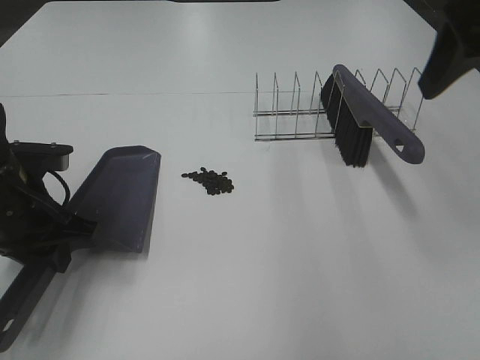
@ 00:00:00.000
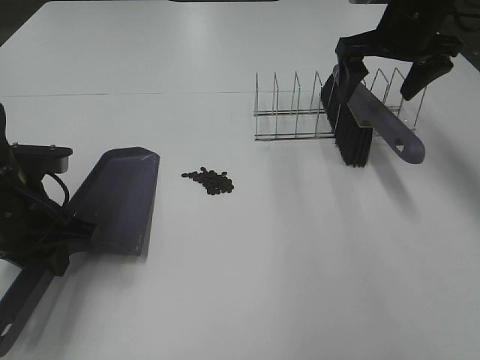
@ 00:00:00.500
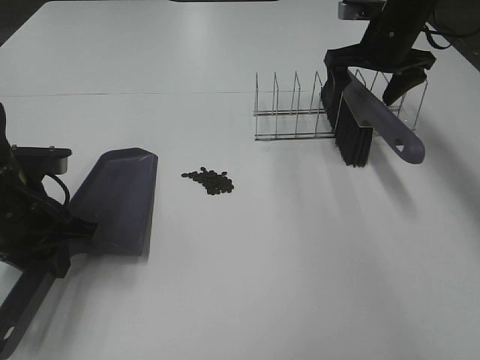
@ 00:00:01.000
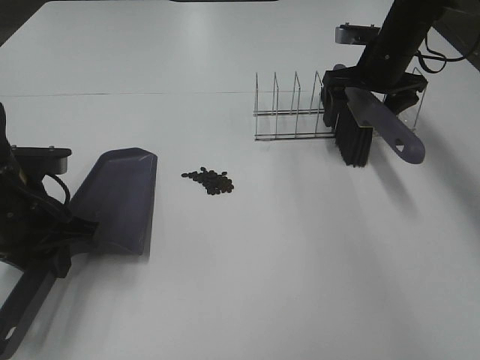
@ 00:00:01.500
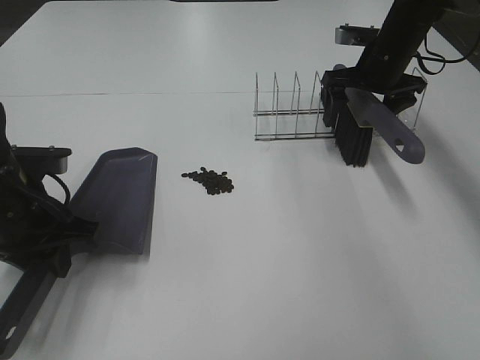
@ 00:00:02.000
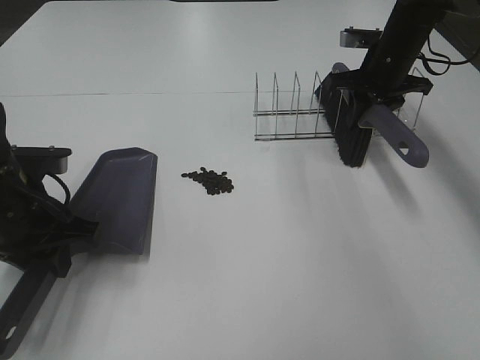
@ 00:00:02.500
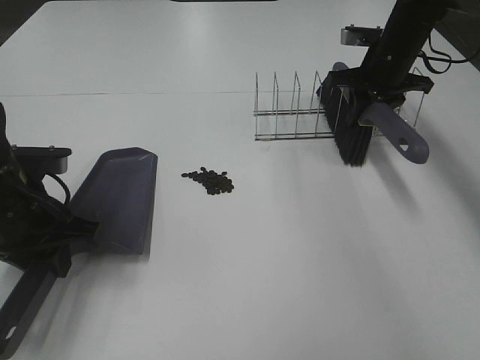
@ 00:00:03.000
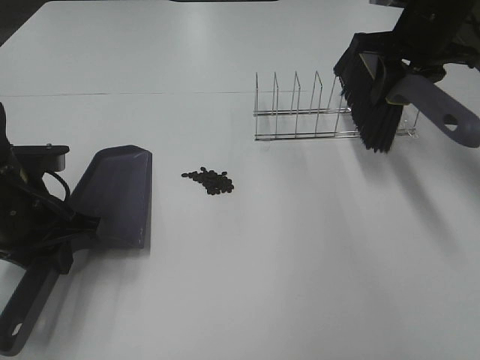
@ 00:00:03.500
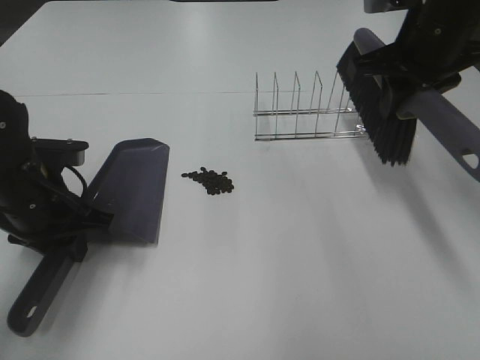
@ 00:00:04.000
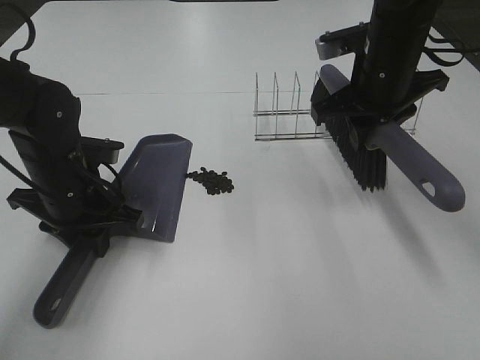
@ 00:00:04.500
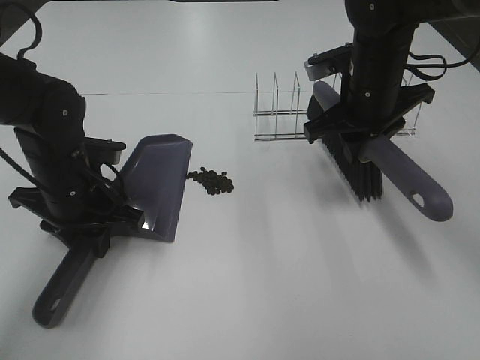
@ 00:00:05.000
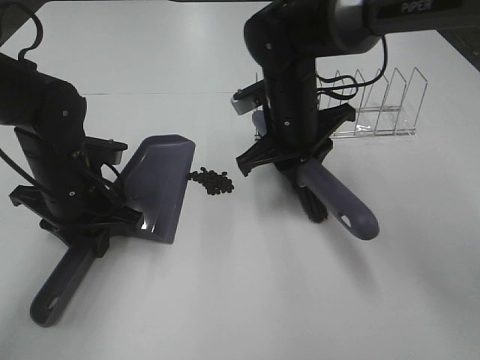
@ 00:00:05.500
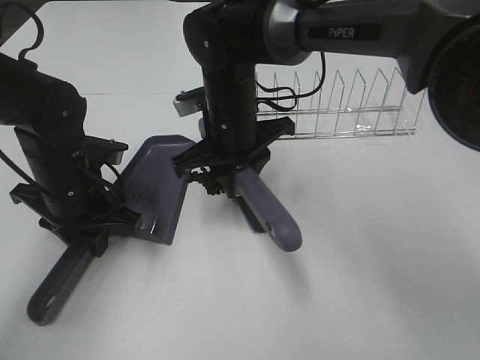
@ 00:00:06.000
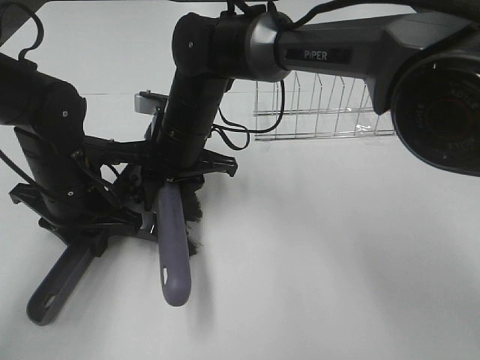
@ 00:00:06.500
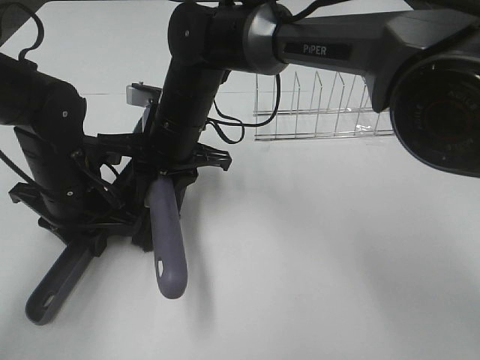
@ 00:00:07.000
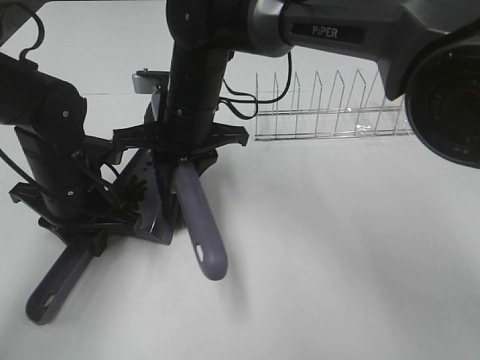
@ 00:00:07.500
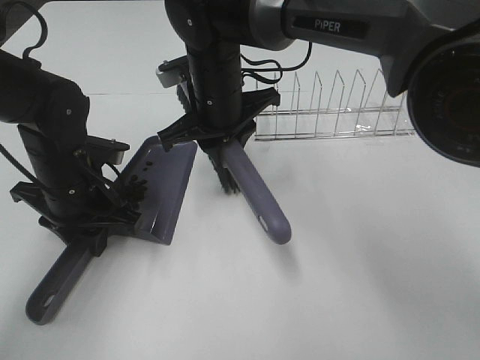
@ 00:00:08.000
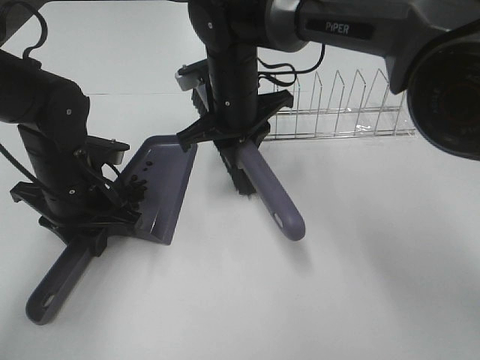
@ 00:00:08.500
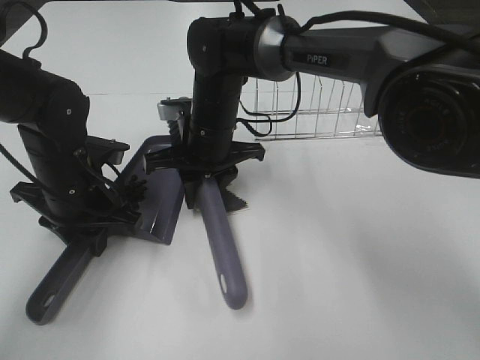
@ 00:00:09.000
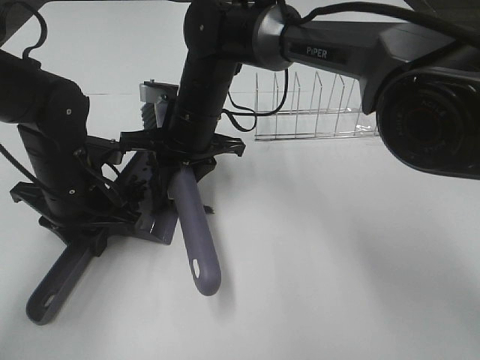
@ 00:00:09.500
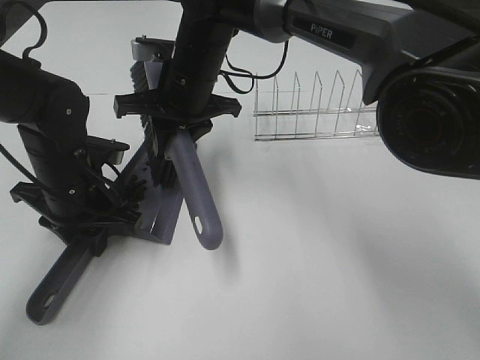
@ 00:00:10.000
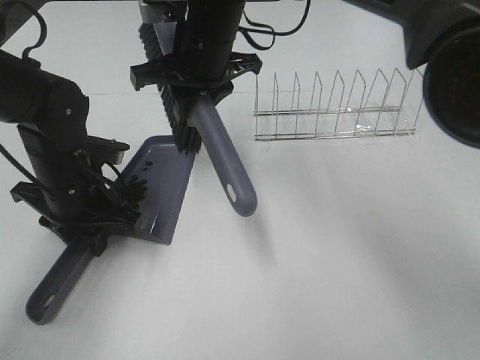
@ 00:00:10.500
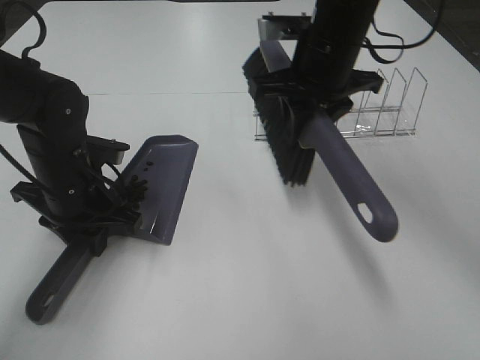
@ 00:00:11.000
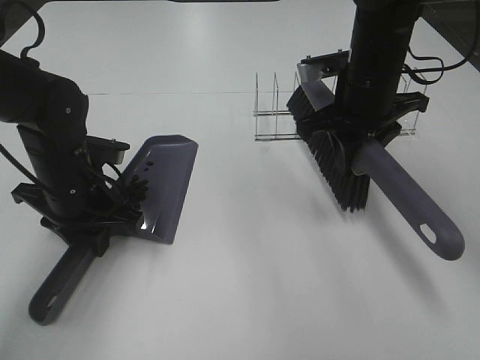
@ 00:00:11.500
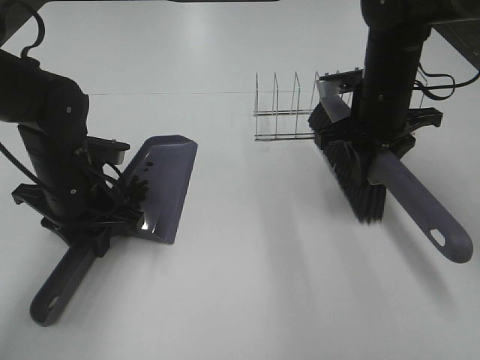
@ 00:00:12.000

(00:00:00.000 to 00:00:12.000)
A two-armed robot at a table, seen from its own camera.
Task of the whole recording: Sweep Coffee Bean.
Step, 00:00:00.000 - 00:00:02.500: Right hand:grab the broom.
Step, 00:00:03.000 - 00:00:10.000: Right hand:sweep the coffee beans into the dustpan.
00:00:00.000 - 00:00:02.000: The right gripper is displaced forward and downward by approximately 25 cm.
00:00:02.000 - 00:00:04.000: The right gripper moves backward and upward, roughly 15 cm, and closes up.
00:00:04.000 - 00:00:06.000: The right gripper is displaced to the left and downward by some 25 cm.
00:00:10.000 - 00:00:12.000: The right gripper travels to the right by some 25 cm.

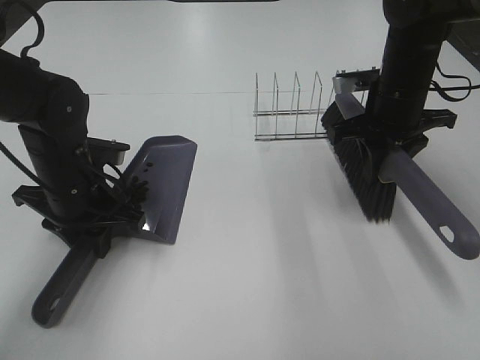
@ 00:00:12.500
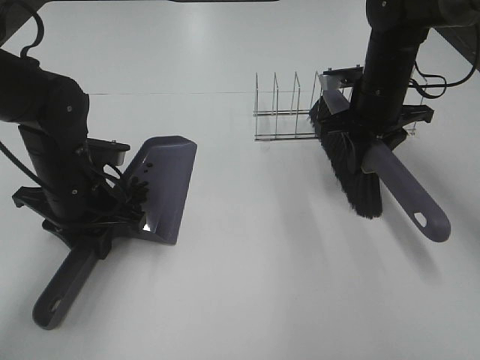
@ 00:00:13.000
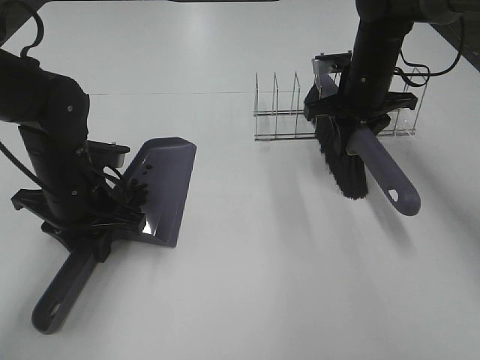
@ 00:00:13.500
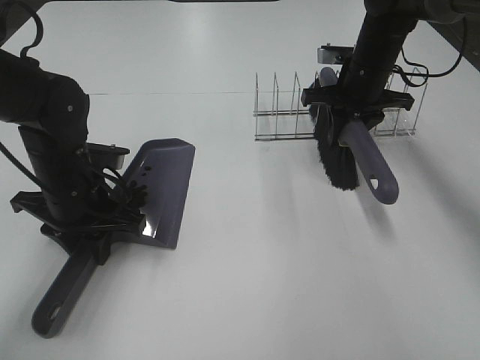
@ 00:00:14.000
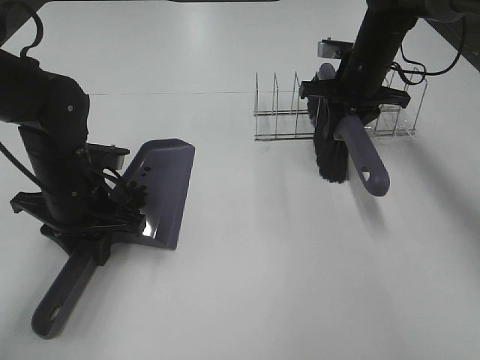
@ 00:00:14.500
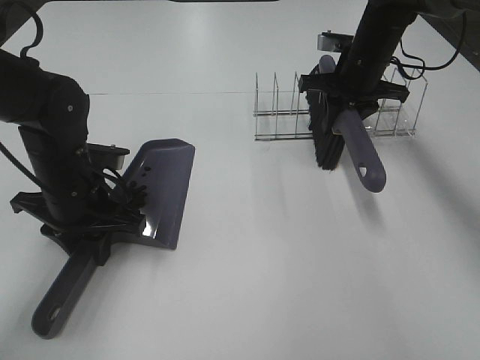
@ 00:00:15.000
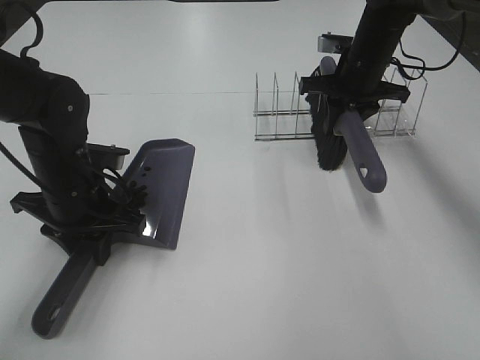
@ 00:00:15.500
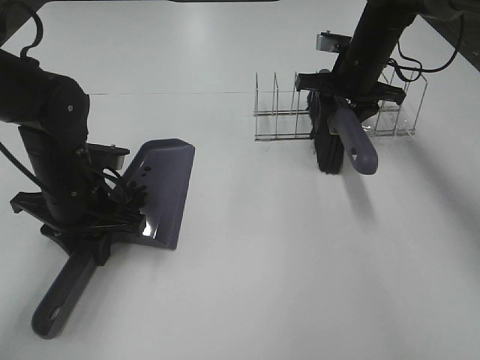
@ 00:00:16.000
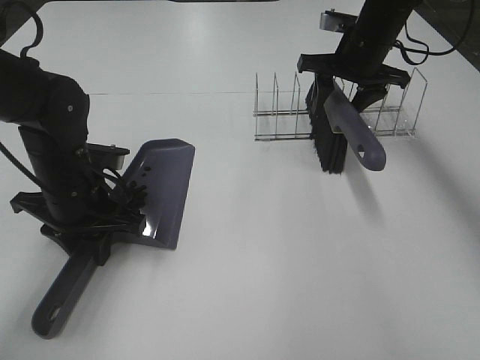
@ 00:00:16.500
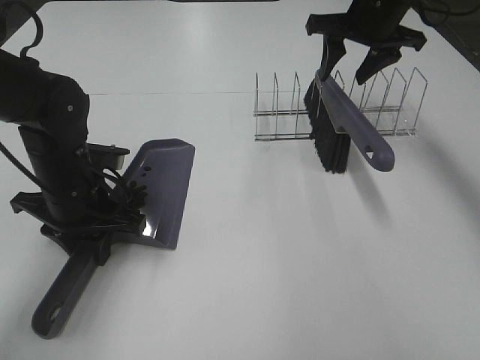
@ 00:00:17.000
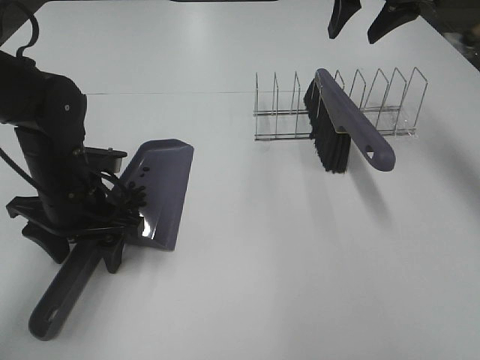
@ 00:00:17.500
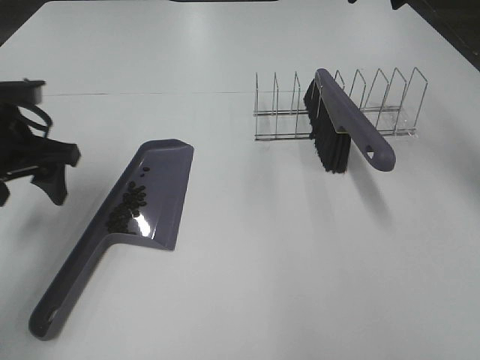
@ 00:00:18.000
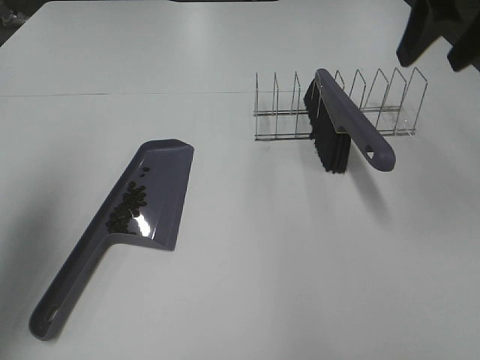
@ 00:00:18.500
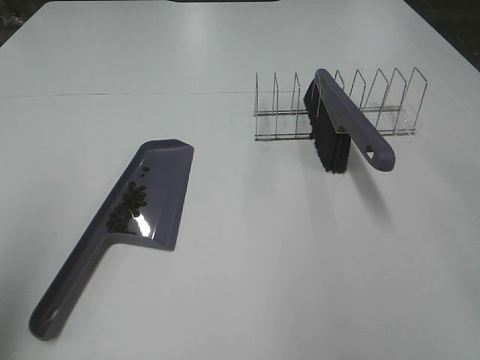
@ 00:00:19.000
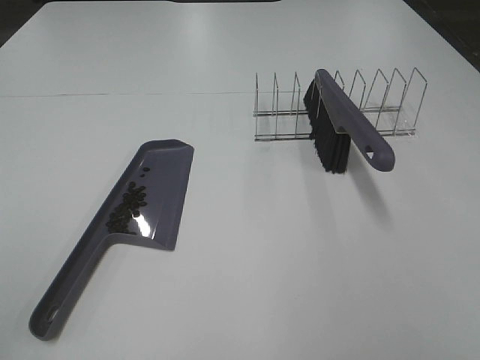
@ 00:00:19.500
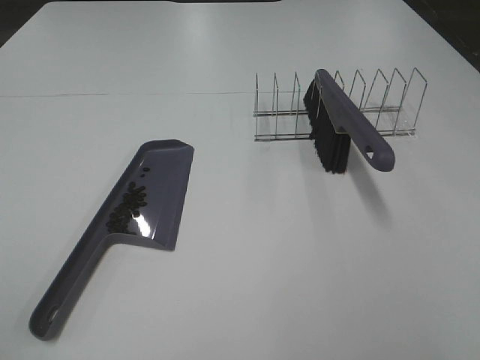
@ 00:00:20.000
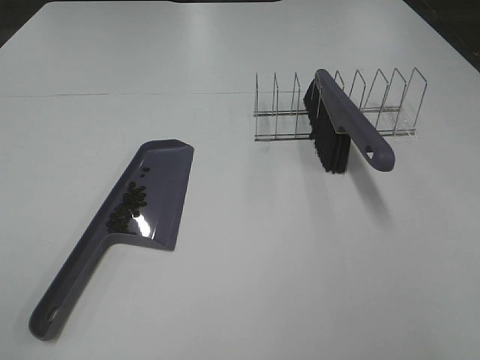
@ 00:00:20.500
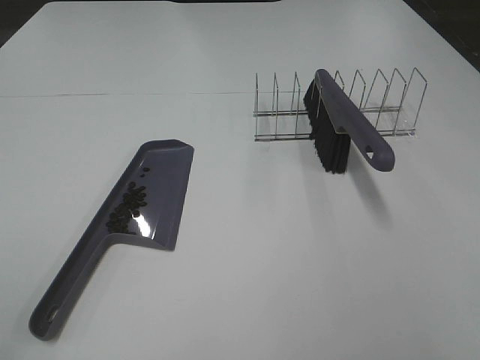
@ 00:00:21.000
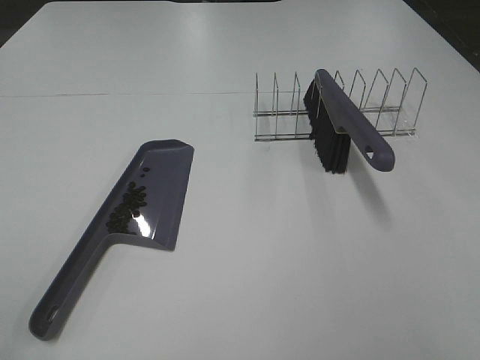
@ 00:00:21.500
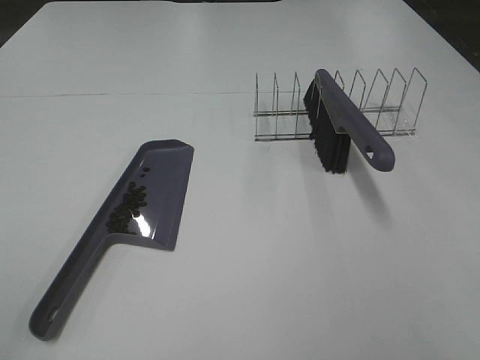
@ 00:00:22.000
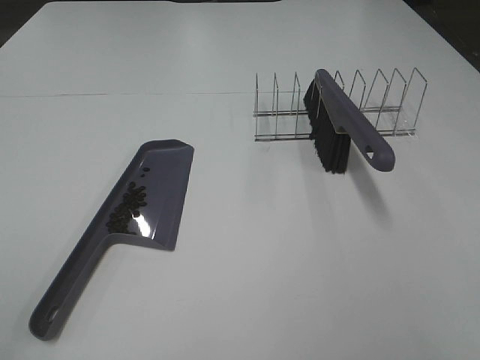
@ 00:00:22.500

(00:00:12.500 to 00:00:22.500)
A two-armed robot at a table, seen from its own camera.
Task of the whole recording: Sweep Coffee Bean.
Step, 00:00:12.500 - 00:00:16.500: Right hand:place the broom on the rack.
Step, 00:00:17.000 - 00:00:17.500: Left hand:place the dustpan on the table.
00:00:12.500 - 00:00:14.500: The right gripper travels forward by about 10 cm.
00:00:14.500 - 00:00:16.500: The right gripper opens up.
00:00:16.500 - 00:00:18.500: The left gripper travels upward and to the left by about 25 cm, and opens its fingers. The right gripper moves backward and upward, about 25 cm.
00:00:18.500 - 00:00:20.500: The two grippers go roughly 30 cm backward.
00:00:20.500 - 00:00:22.500: Both grippers stay about where they are.
